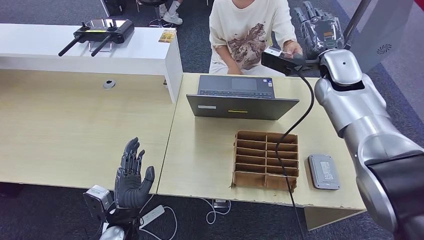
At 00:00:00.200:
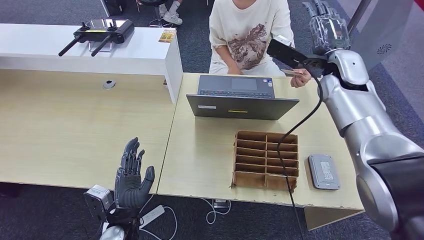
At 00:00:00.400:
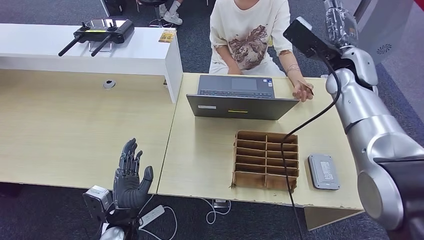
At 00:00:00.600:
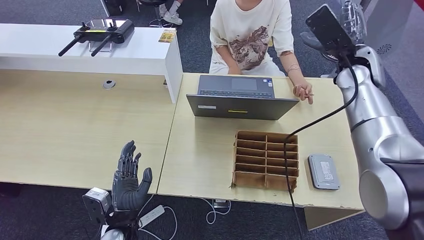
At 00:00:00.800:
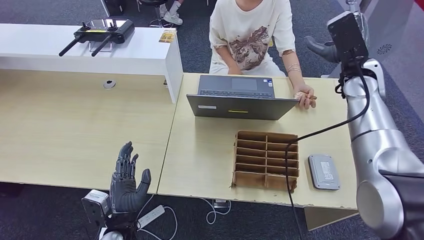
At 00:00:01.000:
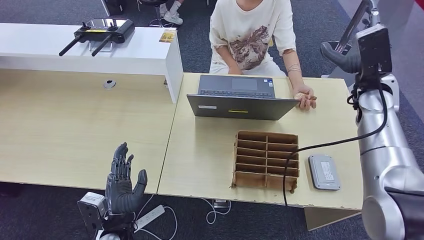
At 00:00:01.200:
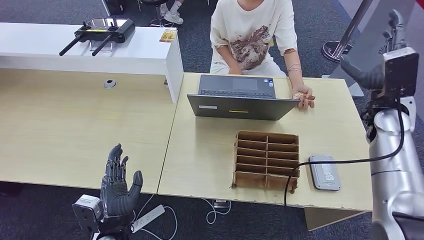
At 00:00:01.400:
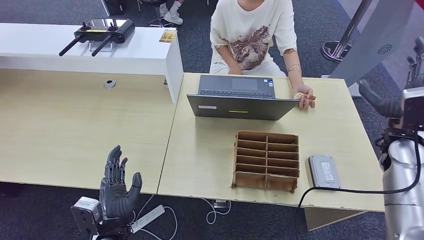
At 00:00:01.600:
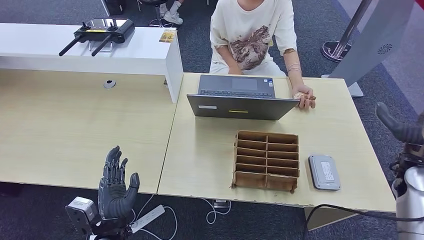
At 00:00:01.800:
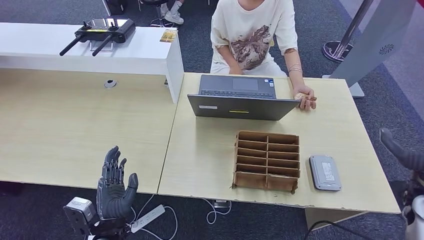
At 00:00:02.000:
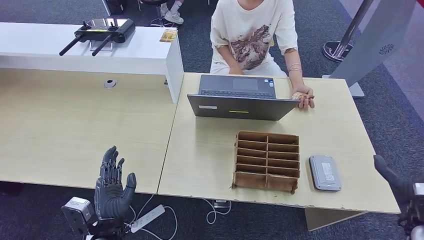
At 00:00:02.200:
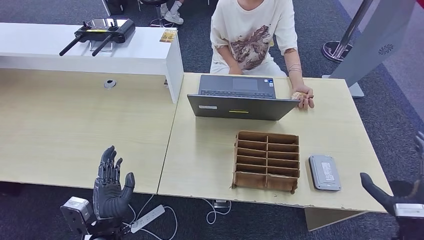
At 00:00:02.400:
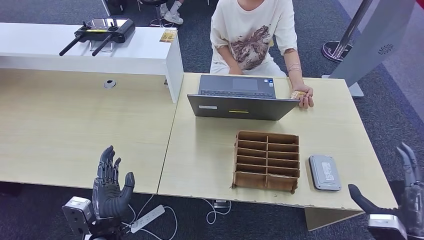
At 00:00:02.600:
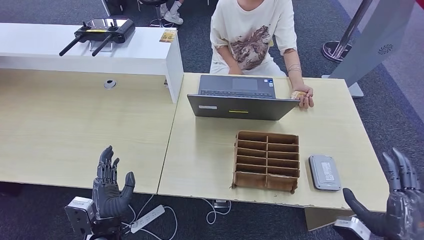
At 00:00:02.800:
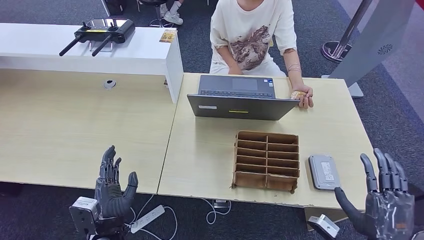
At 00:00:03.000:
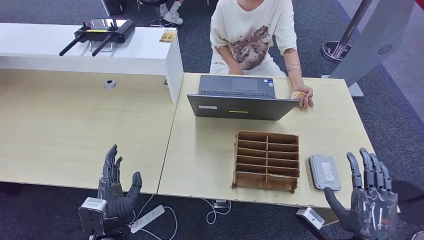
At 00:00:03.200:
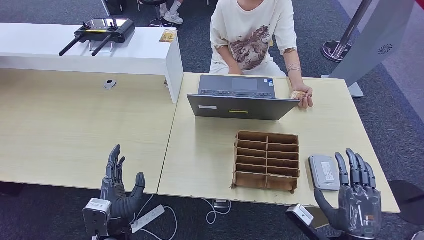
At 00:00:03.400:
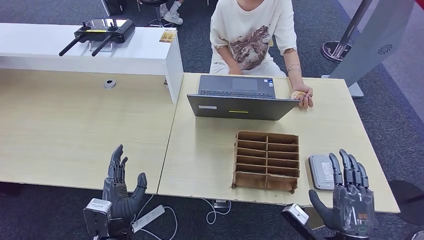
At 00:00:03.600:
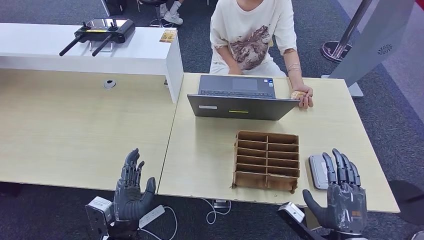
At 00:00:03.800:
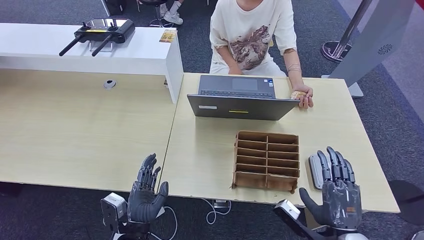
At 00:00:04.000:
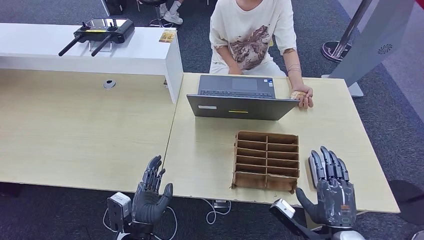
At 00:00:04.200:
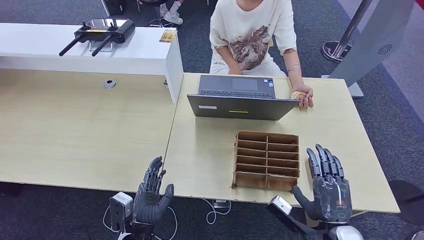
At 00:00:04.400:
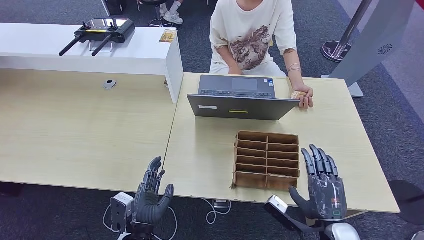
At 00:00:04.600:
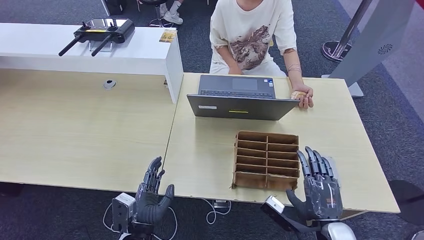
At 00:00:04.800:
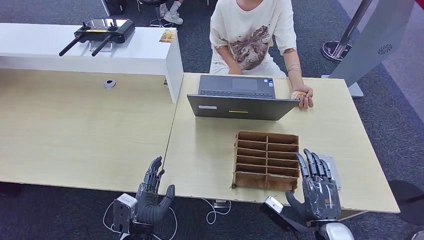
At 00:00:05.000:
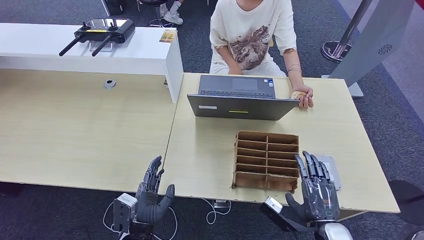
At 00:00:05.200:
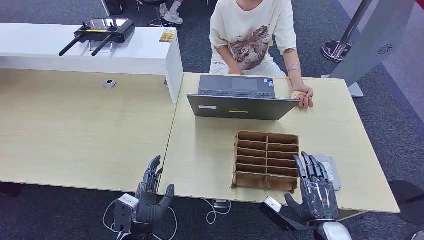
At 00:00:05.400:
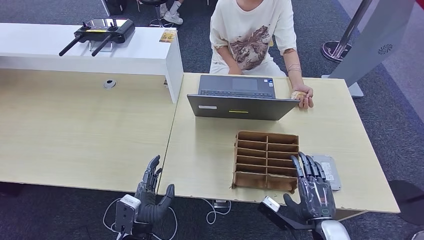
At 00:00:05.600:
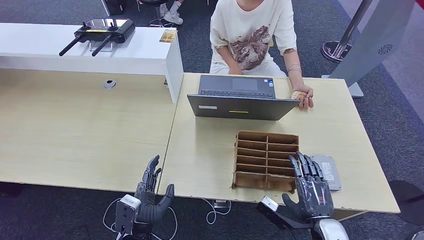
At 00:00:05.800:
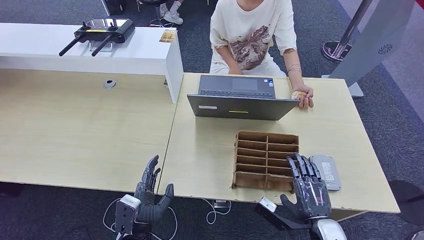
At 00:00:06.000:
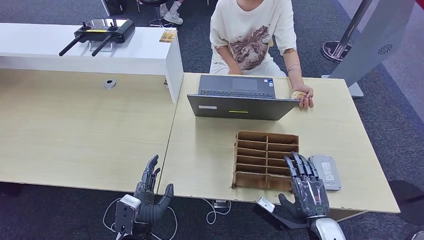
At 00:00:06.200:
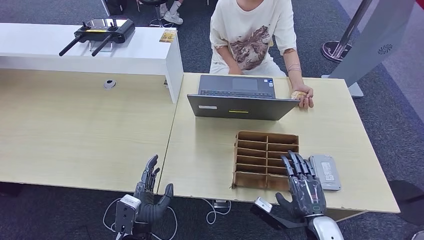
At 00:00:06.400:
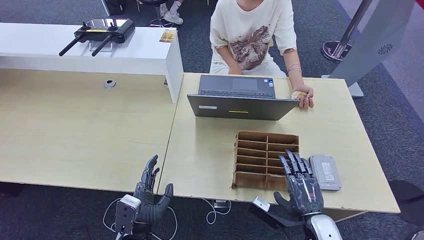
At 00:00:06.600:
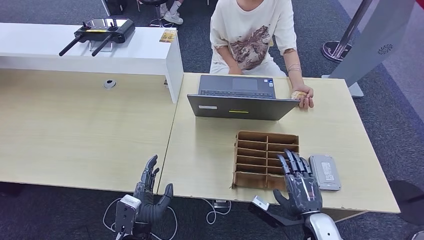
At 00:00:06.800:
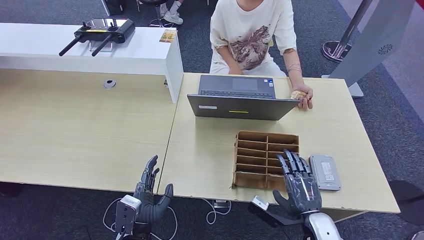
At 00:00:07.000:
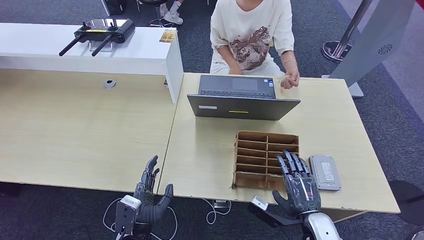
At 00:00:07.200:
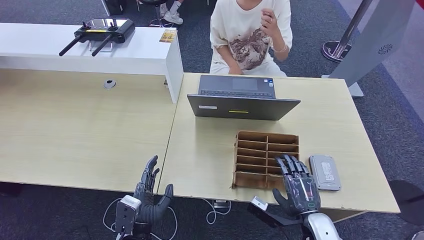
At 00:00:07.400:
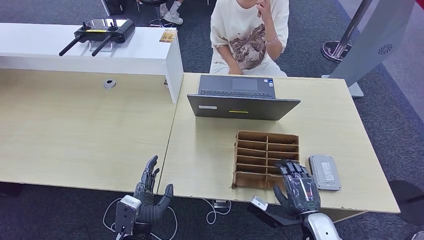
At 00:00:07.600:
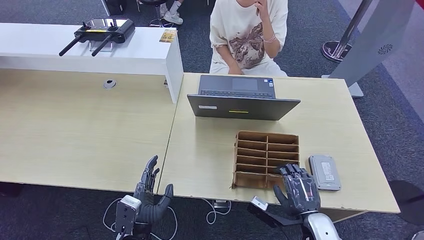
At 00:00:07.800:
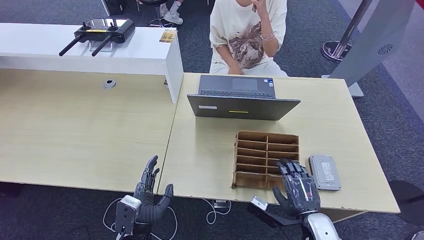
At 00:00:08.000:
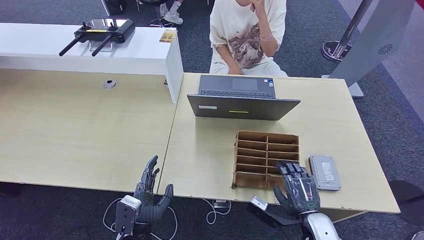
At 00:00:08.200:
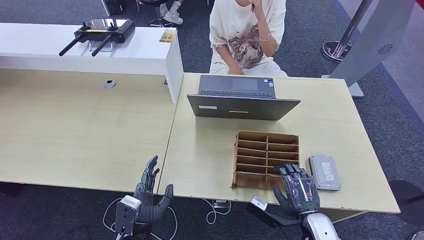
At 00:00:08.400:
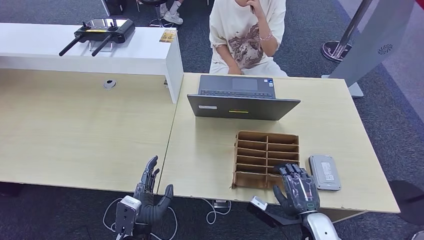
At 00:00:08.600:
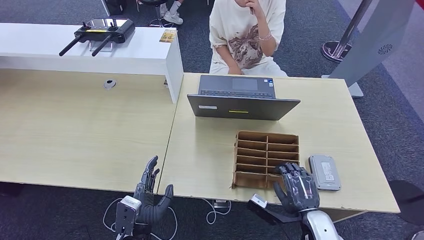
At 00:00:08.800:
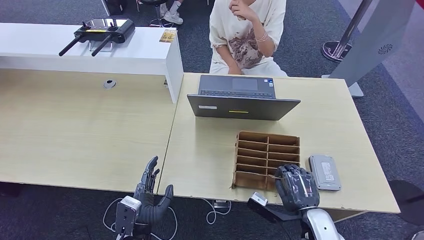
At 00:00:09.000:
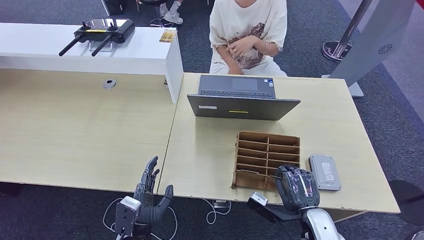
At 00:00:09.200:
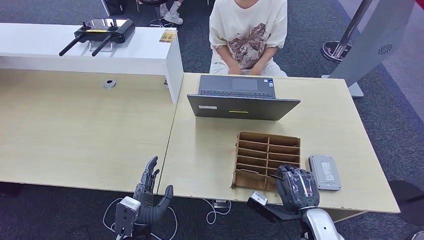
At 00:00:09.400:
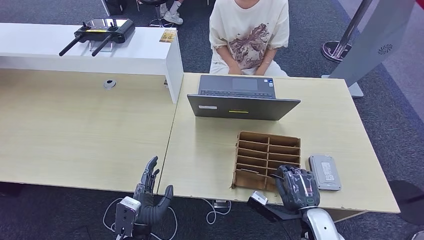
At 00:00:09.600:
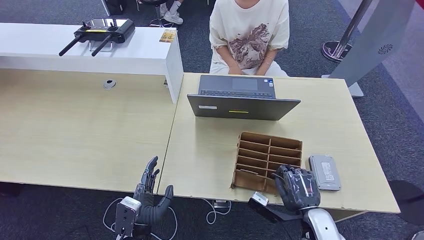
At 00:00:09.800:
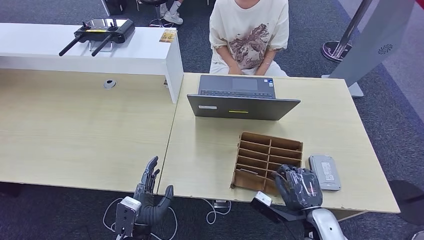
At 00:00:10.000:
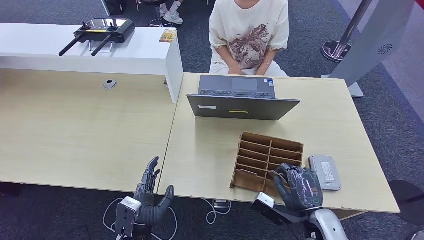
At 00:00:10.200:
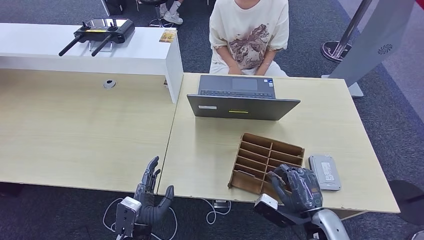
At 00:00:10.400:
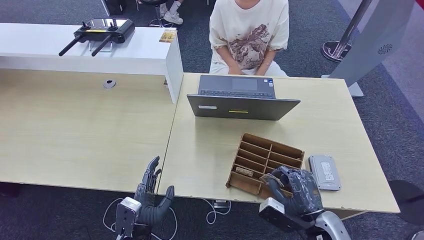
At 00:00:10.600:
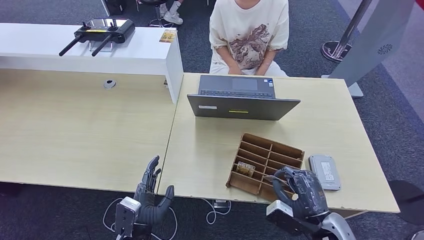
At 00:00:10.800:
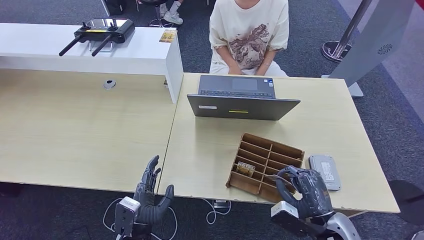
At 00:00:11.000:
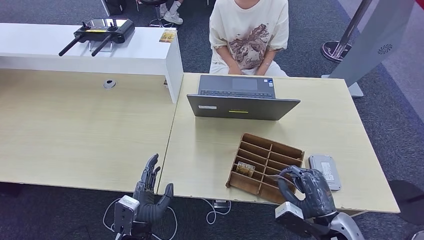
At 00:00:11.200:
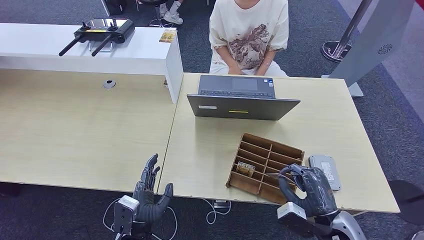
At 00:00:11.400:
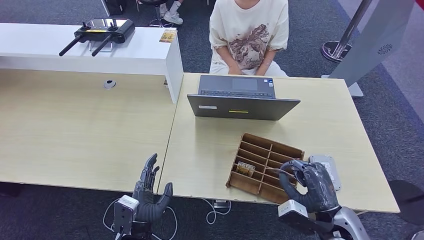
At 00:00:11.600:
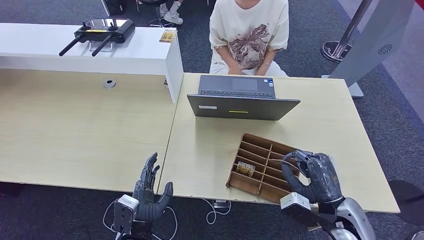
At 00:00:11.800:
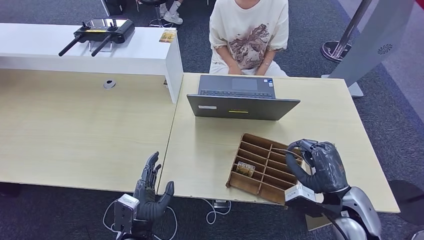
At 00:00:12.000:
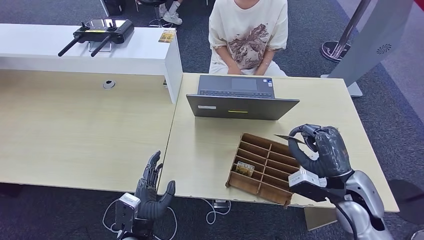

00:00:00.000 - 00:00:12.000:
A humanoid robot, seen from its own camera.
00:00:00.000 - 00:00:01.600: The right hand moves to the right, backward and downward, roughly 25 cm.
00:00:01.600 - 00:00:03.000: The right hand heads backward, to the left and downward, covering roughly 25 cm.
00:00:03.000 - 00:00:04.400: The right hand is displaced to the left by some 5 cm, while the left hand is displaced to the right by about 5 cm.
00:00:04.400 - 00:00:07.600: The hands make only small movements.
00:00:07.600 - 00:00:09.000: Neither hand changes place.
00:00:10.400 - 00:00:12.000: The right hand travels upward and forward by roughly 10 cm.

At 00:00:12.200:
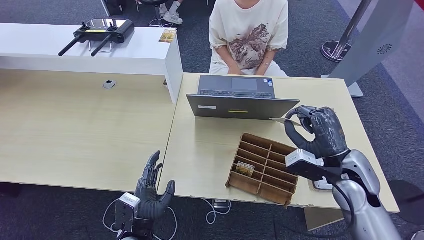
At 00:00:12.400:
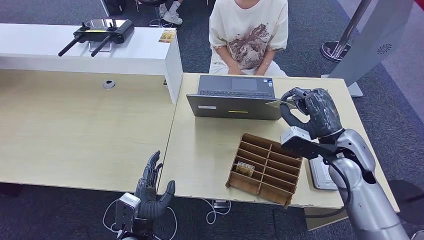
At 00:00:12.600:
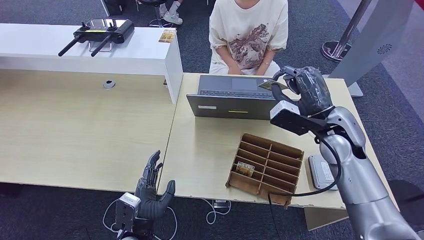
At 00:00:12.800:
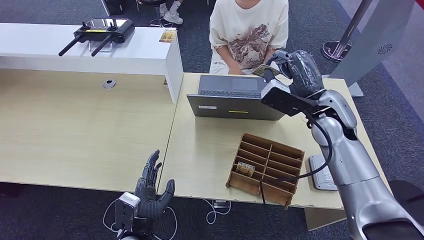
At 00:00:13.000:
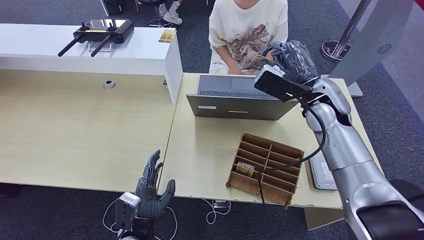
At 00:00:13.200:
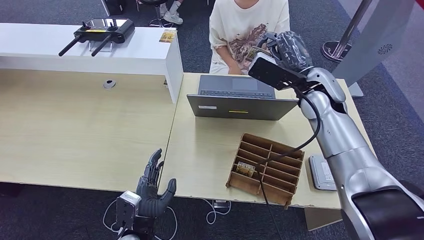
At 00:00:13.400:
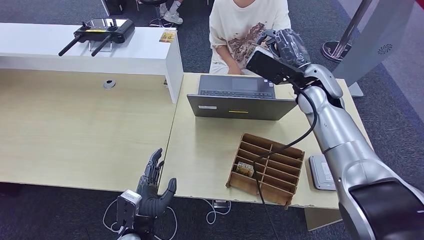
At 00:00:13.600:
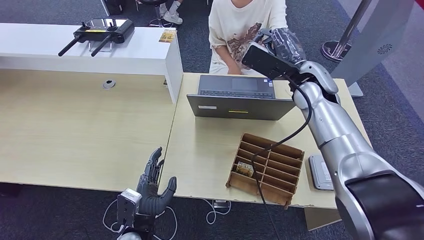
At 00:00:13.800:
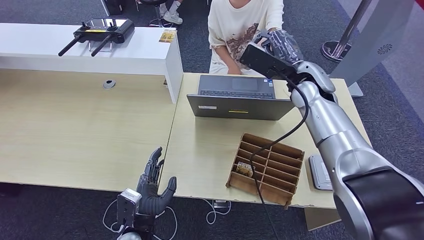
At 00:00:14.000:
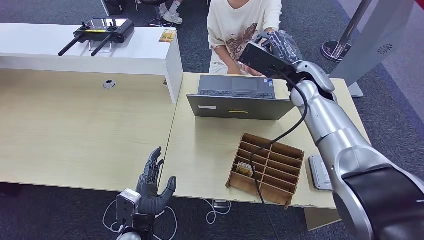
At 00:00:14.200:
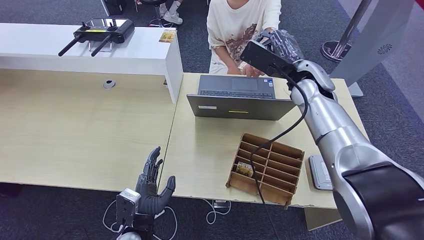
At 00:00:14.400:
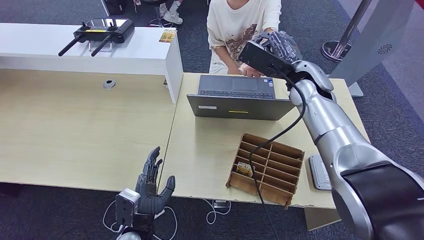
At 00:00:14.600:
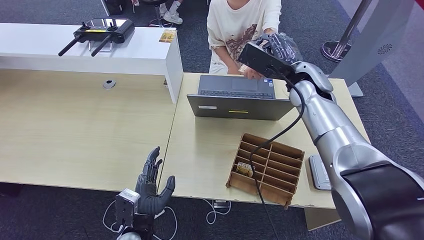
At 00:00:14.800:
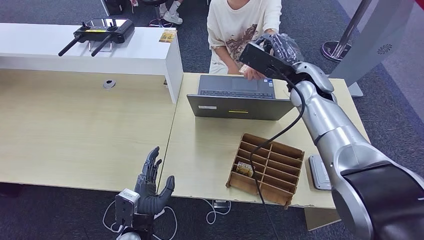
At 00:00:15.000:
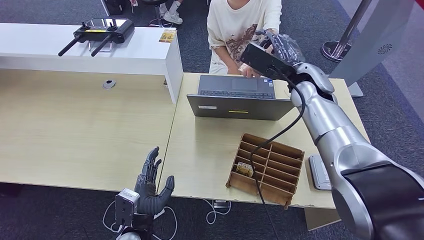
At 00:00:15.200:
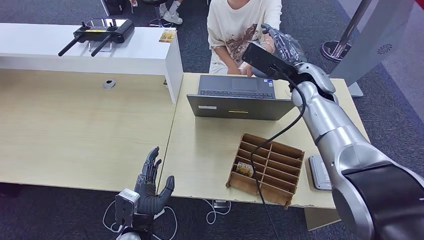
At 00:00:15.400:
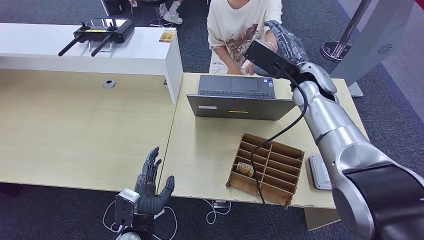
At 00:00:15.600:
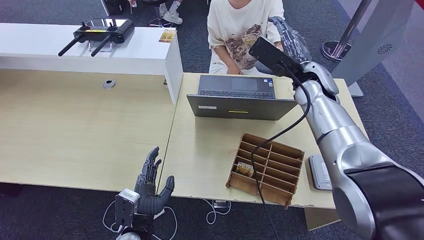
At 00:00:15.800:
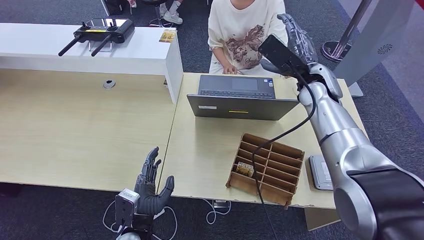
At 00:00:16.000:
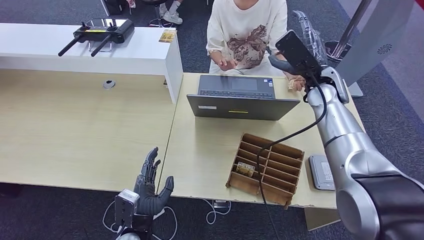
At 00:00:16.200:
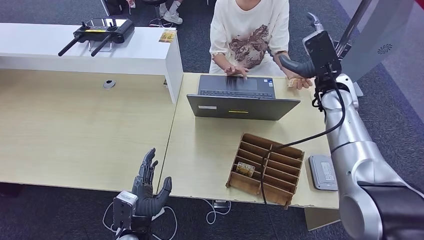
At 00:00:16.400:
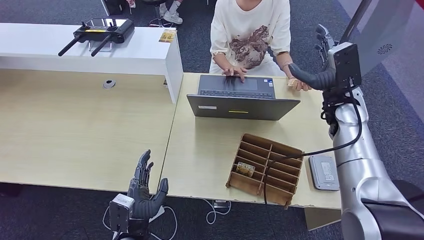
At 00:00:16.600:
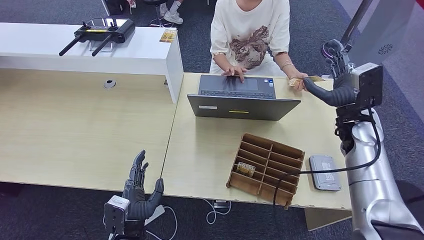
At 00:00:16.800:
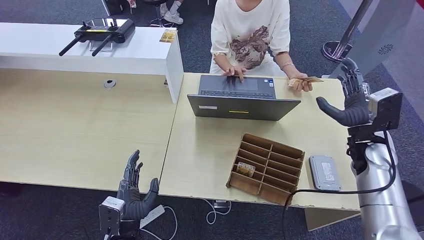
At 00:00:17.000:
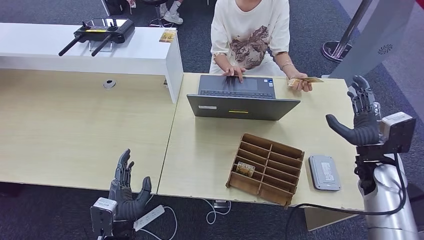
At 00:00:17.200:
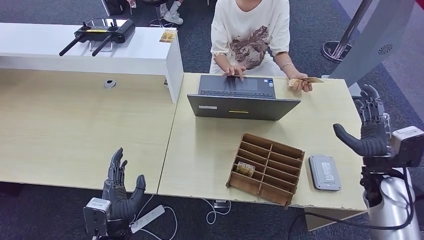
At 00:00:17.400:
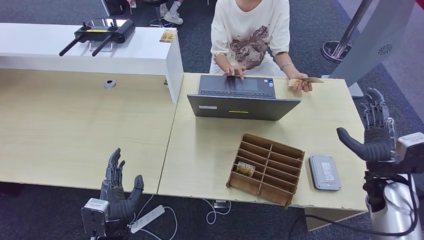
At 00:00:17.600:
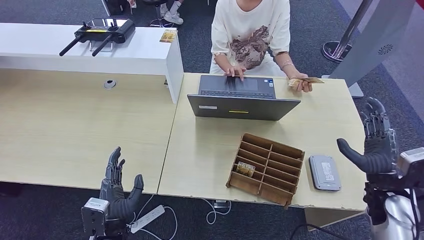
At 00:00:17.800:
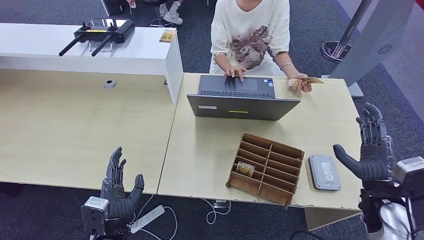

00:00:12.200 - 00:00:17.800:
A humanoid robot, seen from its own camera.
Step, 00:00:13.000 - 00:00:17.800: Hand the room key to the person.
00:00:12.200 - 00:00:13.600: The right hand travels forward, upward and to the left by approximately 20 cm.
00:00:13.600 - 00:00:15.000: The hands stay close to where they were, moving slightly.
00:00:15.000 - 00:00:16.400: The right hand moves to the right, some 10 cm.
00:00:16.400 - 00:00:17.800: The right hand heads backward, downward and to the right, covering some 20 cm.
